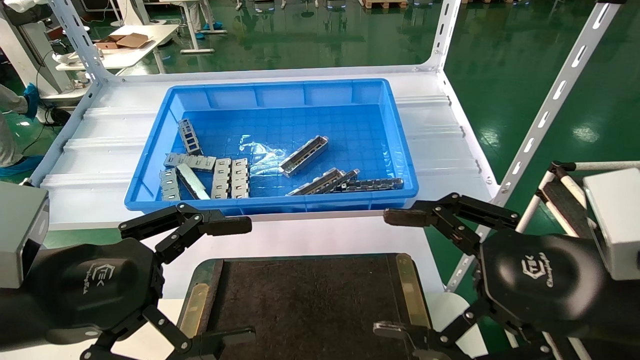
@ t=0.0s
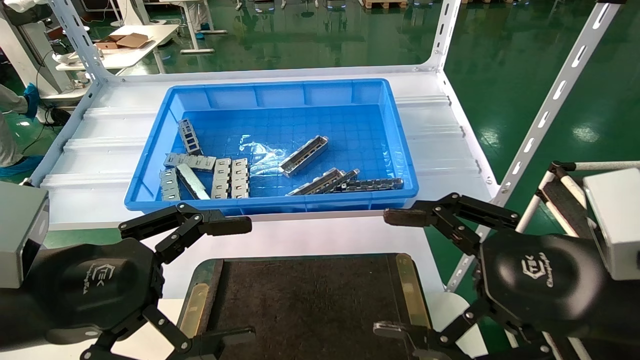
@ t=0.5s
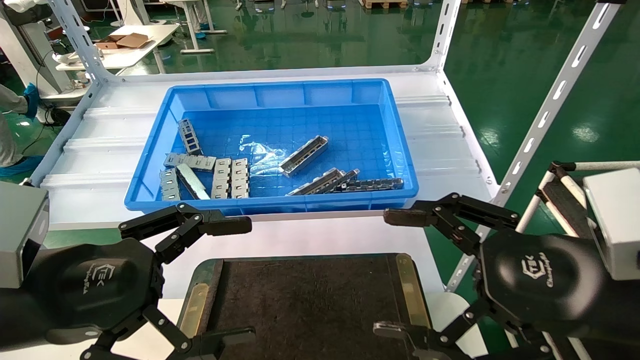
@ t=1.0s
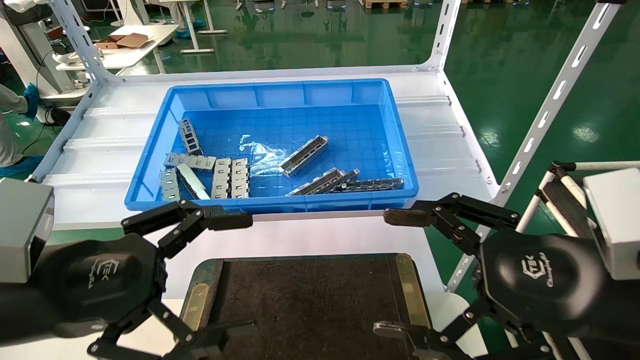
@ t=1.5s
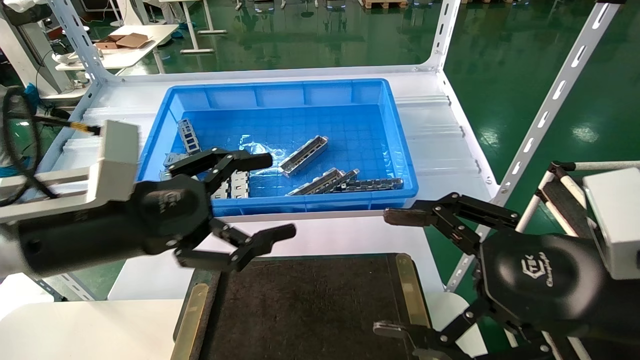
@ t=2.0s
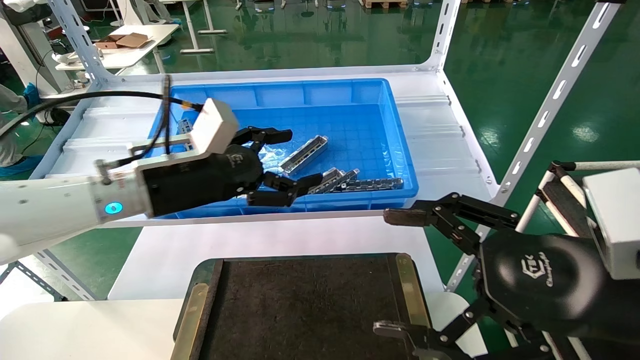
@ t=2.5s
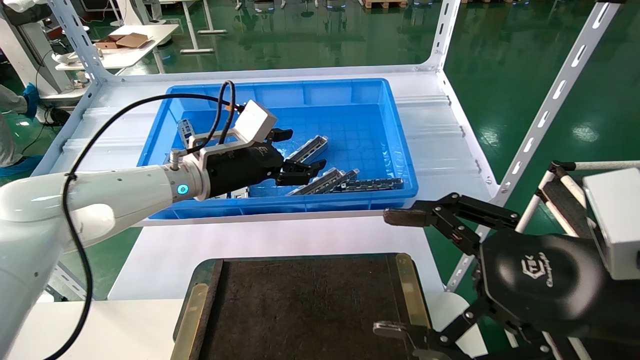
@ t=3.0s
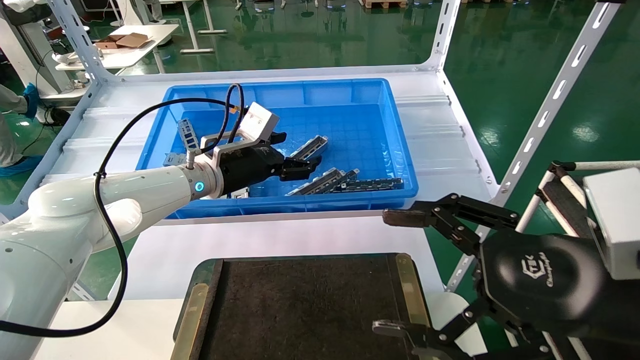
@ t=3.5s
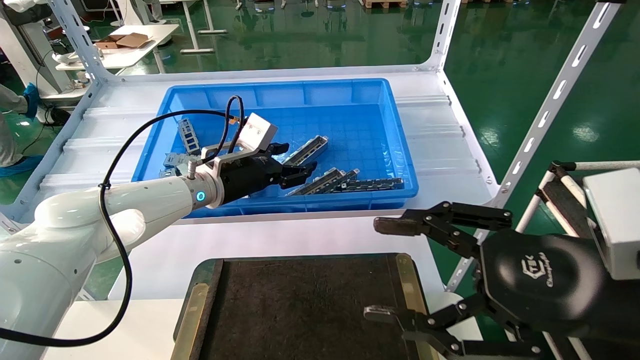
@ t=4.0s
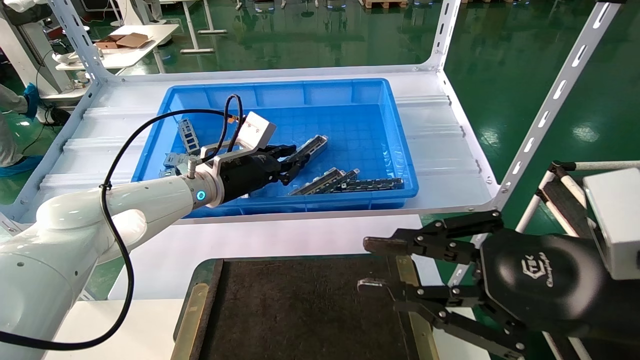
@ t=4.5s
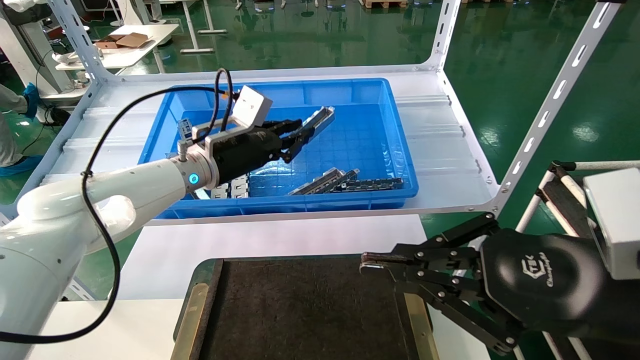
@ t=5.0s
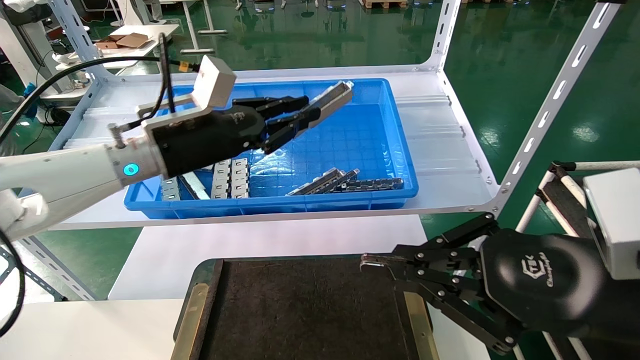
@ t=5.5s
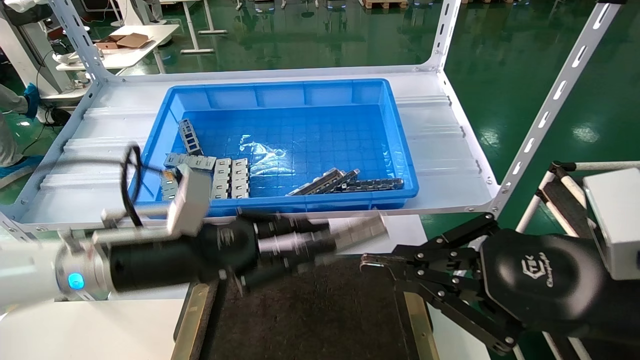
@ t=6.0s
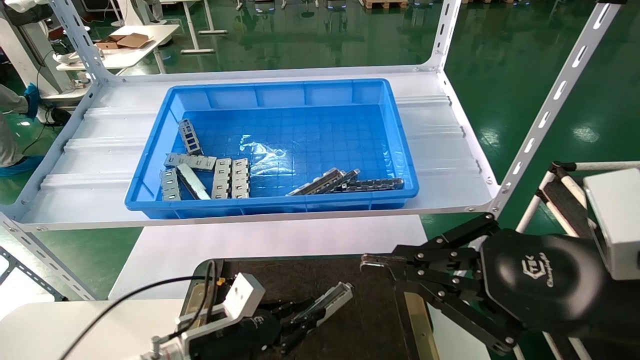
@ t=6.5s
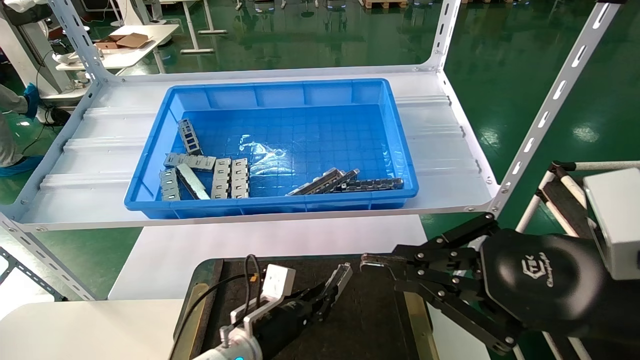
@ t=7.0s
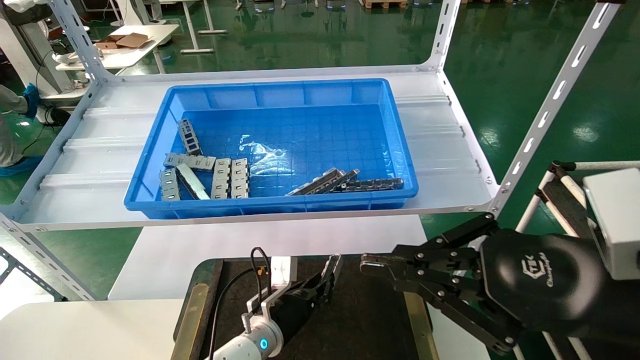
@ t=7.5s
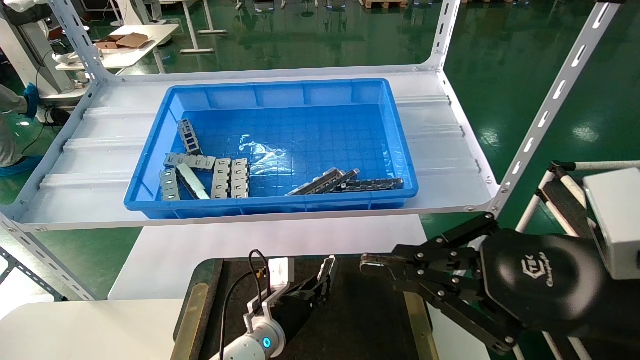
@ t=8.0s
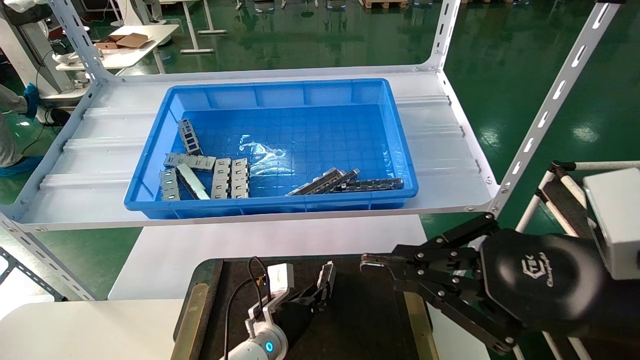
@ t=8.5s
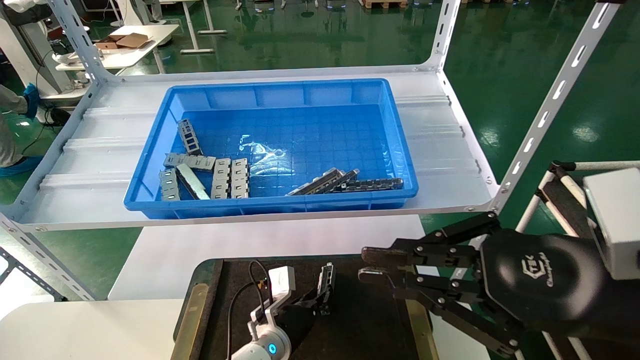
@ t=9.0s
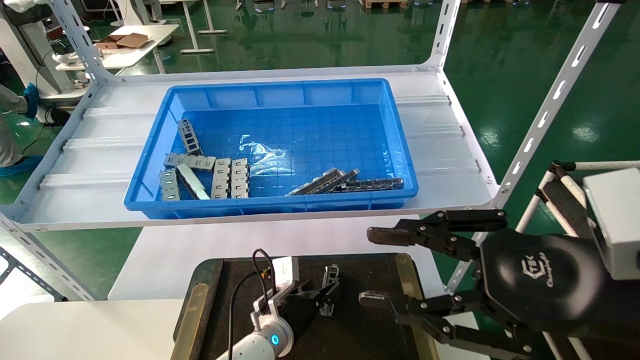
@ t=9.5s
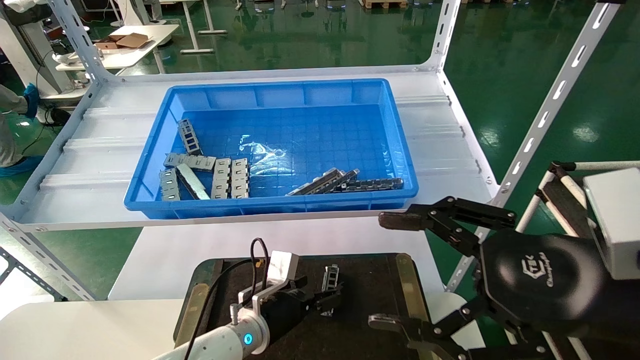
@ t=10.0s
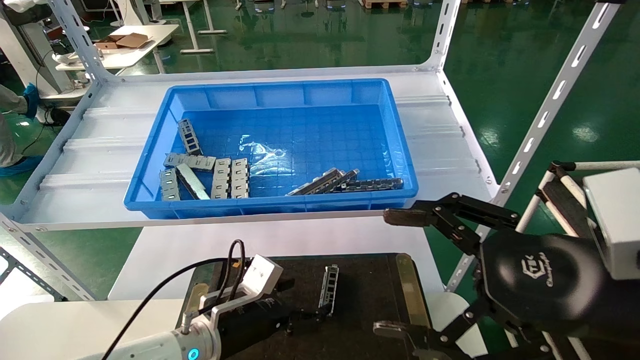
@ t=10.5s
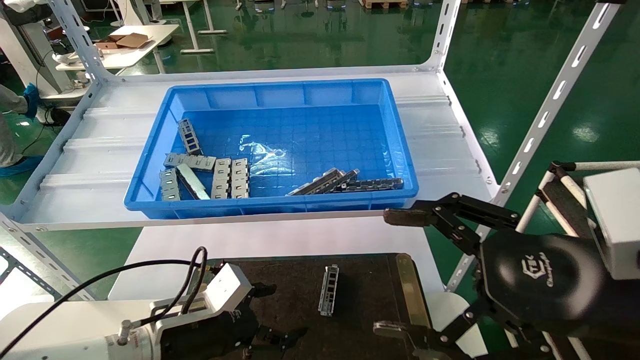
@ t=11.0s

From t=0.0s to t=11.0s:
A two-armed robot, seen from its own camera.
Task of the whole recording: Grasp the part with one hand and place it on the black container.
Step, from t=2.0s to t=4.5s: Pick up the front USB bracket from the feeding area.
Step, from t=5.0s to t=9.0s: Place the front USB bracket into the box.
From t=0.0s to t=2.0s: The left gripper goes approximately 10 cm forward.
From t=2.0s to t=3.5s: The left gripper moves forward, roughly 20 cm.
From t=3.5s to t=5.5s: The right gripper closes its fingers, while the left gripper heads backward, covering about 10 cm, and closes.
From t=5.5s to t=7.5s: The left gripper shifts about 30 cm downward.
From t=7.5s to t=9.0s: The grippers stay close to where they were, moving slightly.
From t=9.0s to t=11.0s: The left gripper goes approximately 20 cm to the left, backward and upward, and opens. The right gripper opens up.
